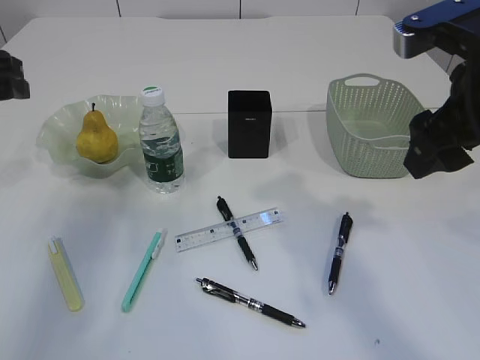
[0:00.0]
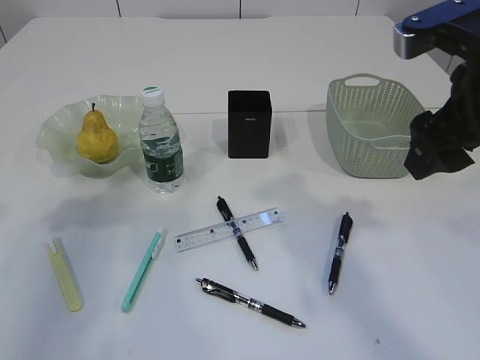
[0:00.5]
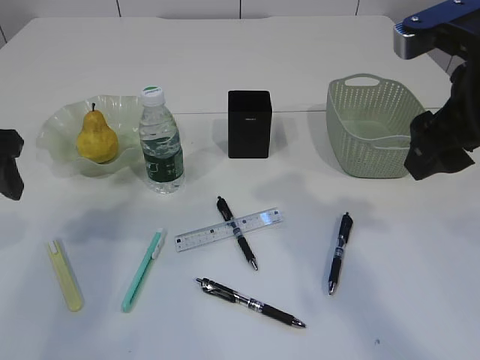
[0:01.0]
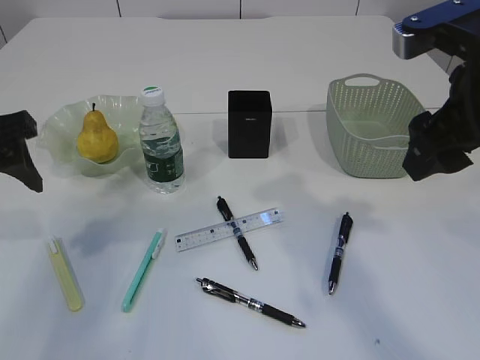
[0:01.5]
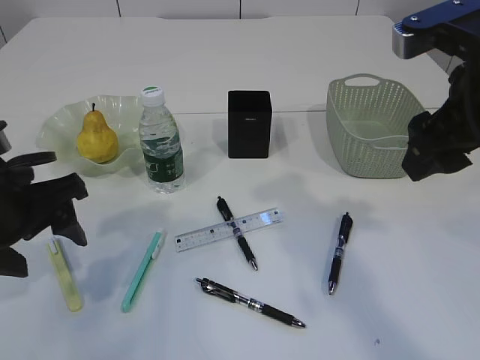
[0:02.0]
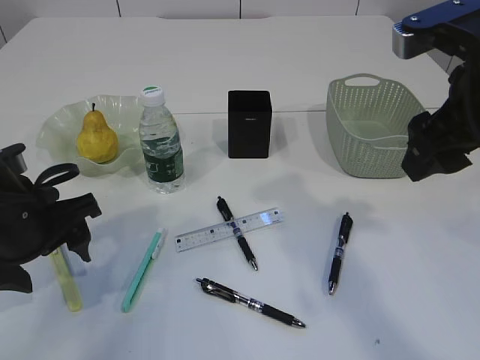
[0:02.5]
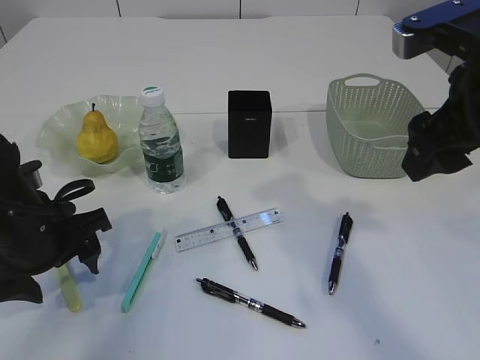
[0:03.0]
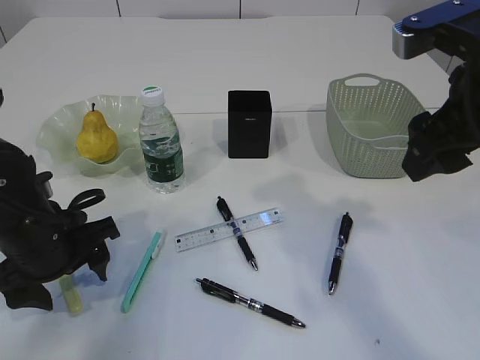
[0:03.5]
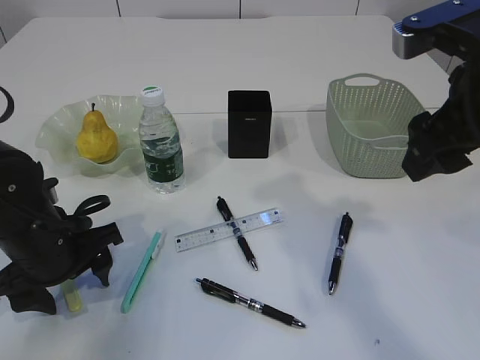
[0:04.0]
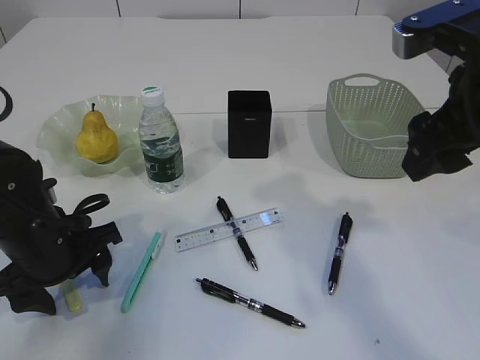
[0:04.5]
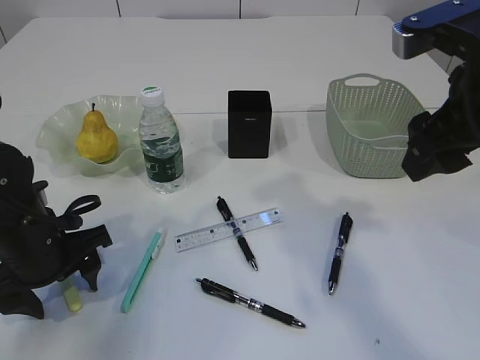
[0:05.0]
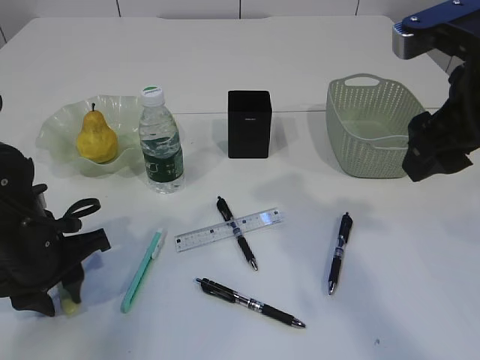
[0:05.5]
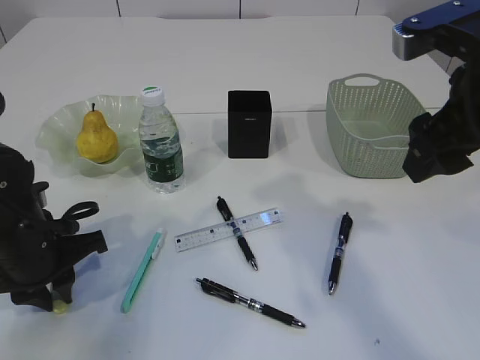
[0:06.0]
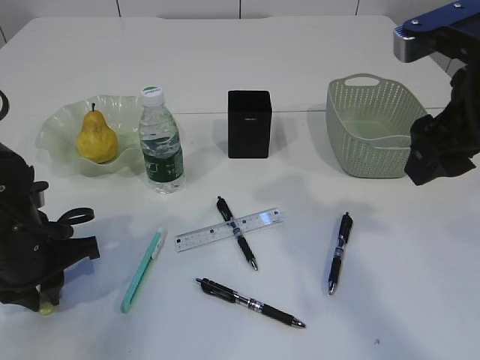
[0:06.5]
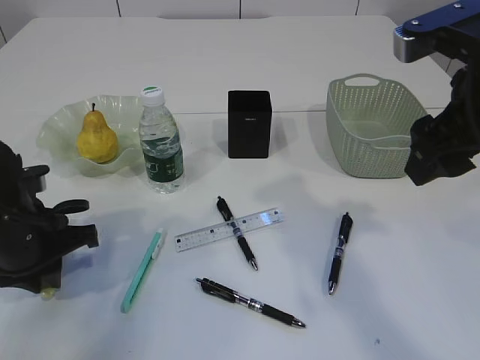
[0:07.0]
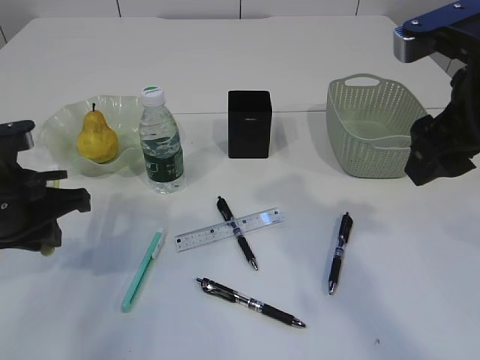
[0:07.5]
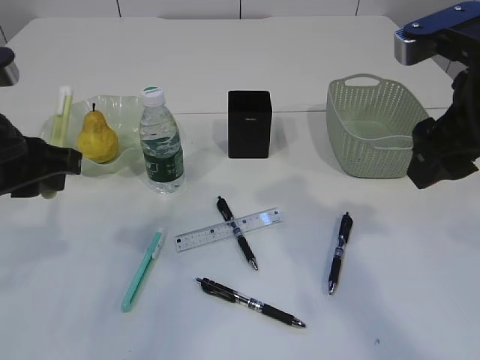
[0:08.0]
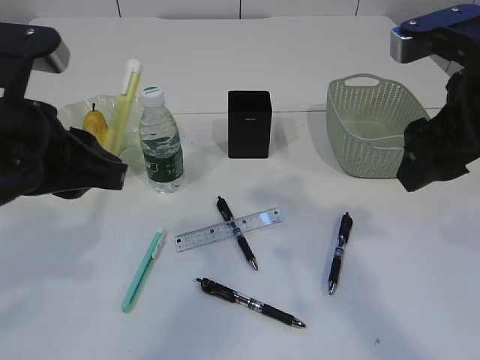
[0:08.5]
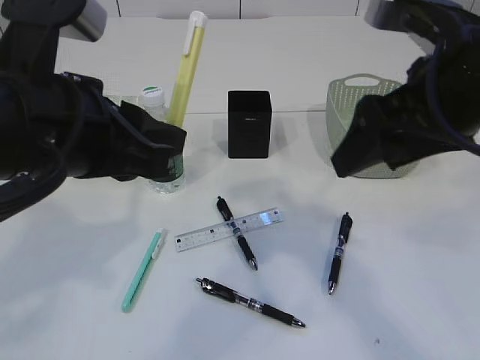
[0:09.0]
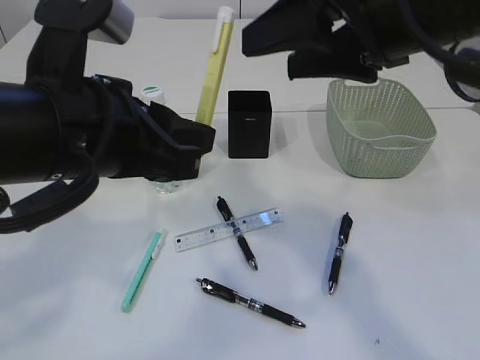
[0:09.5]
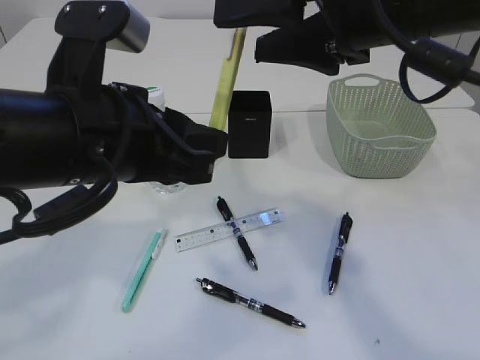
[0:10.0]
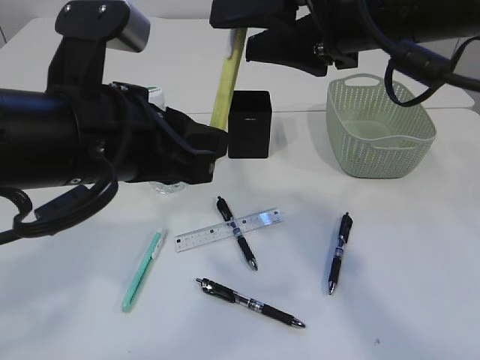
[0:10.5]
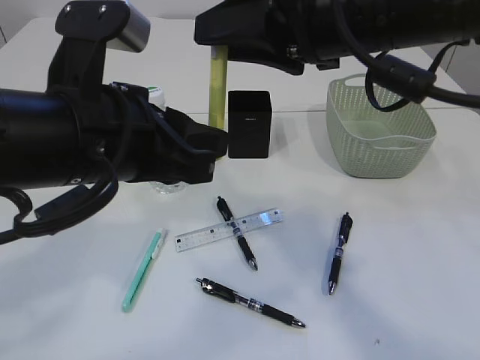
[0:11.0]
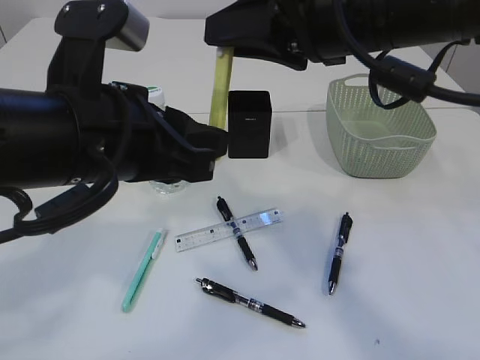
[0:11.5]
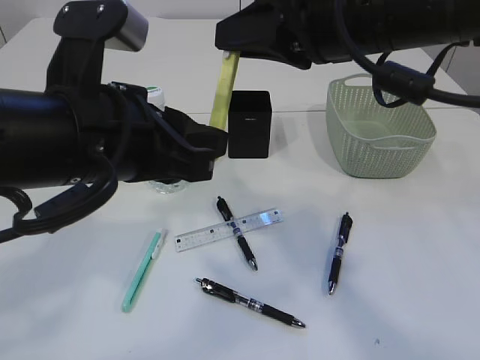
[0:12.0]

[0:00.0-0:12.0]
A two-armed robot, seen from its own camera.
Step, 0:00.0 to 0:08.0: pick up the yellow knife.
0:00.0 to 0:02.0: The left gripper travels backward, to the right and downward by some 15 cm.
0:02.0 to 0:04.0: The left gripper is displaced downward by about 10 cm.
0:04.0 to 0:06.0: The left gripper closes its fingers.
0:06.0 to 0:08.0: The left gripper travels upward by roughly 15 cm.
0:08.0 to 0:10.0: The left gripper is displaced to the right by about 10 cm, while the right gripper travels to the left by some 10 cm.
0:10.0 to 0:12.0: The right gripper closes.

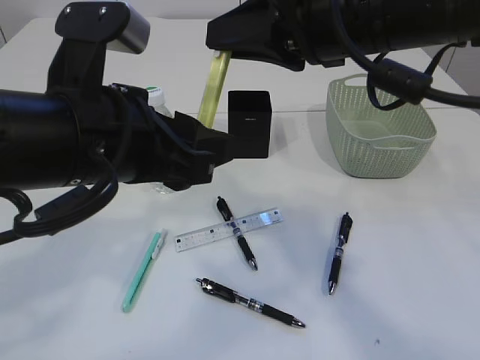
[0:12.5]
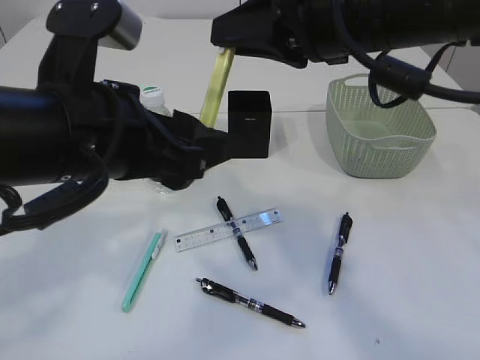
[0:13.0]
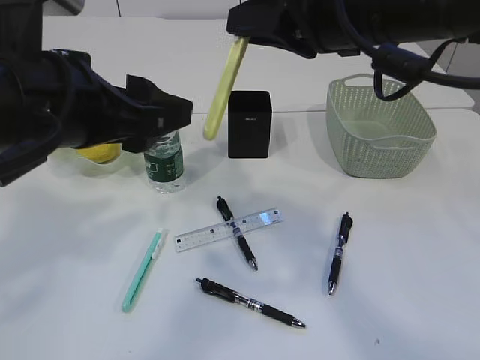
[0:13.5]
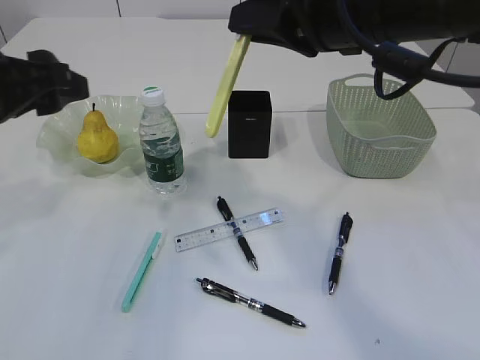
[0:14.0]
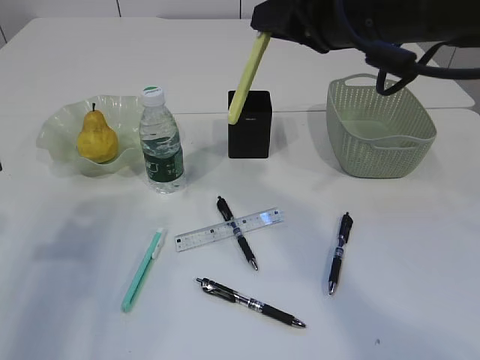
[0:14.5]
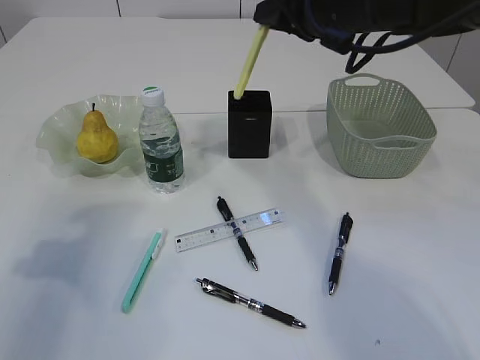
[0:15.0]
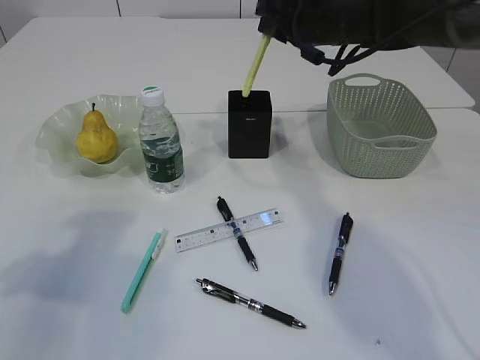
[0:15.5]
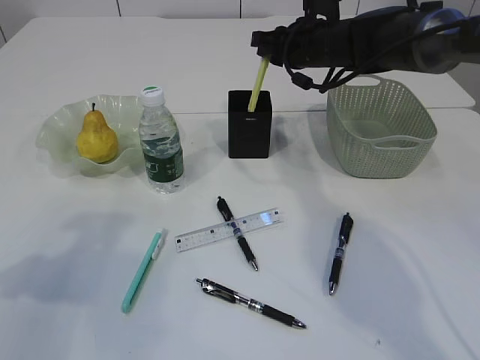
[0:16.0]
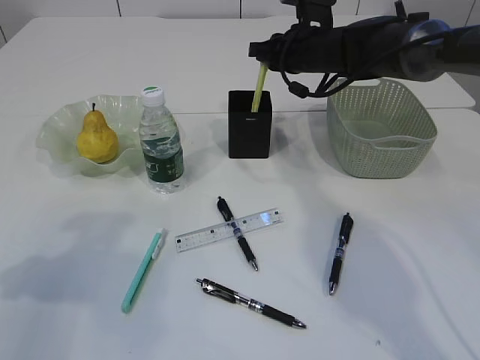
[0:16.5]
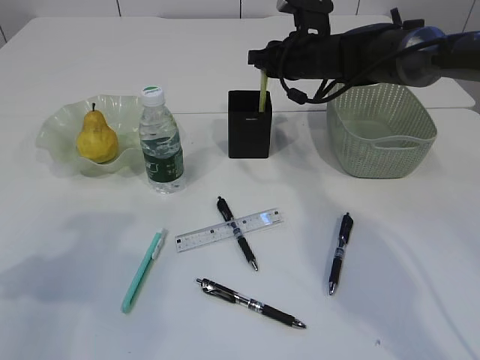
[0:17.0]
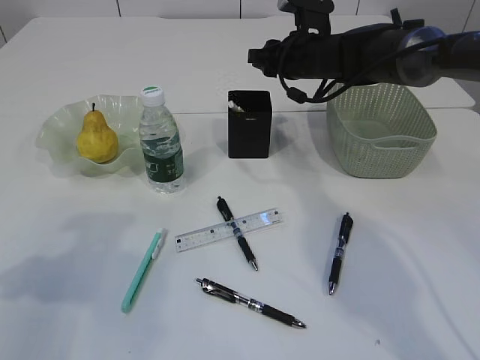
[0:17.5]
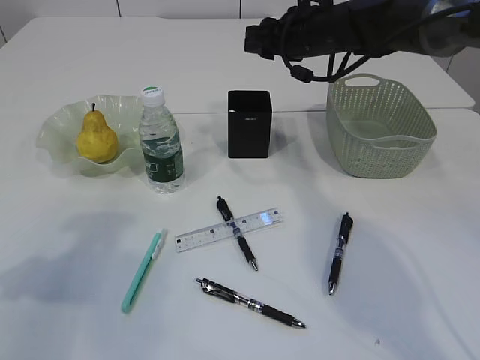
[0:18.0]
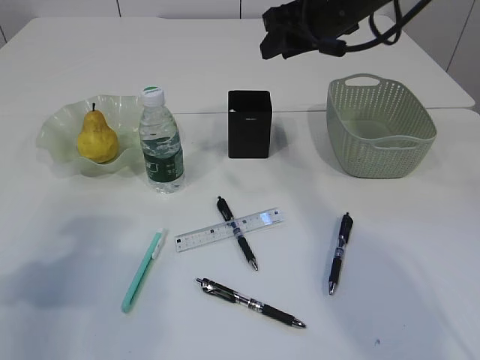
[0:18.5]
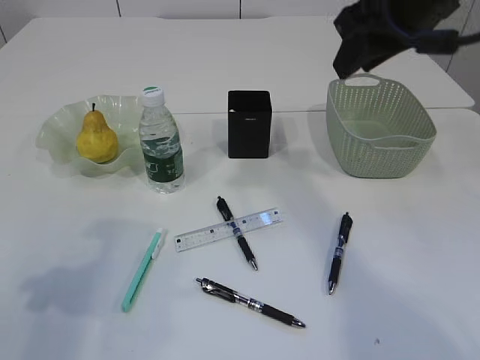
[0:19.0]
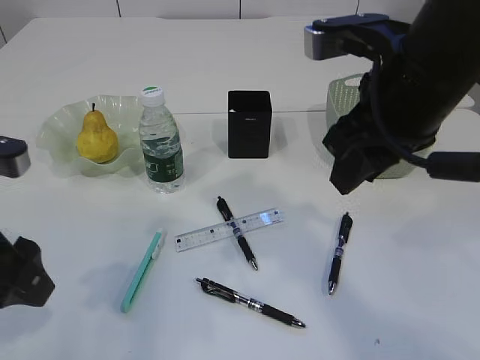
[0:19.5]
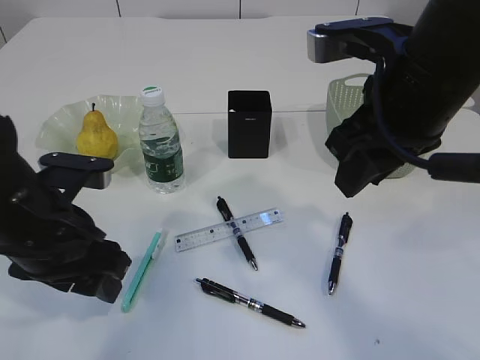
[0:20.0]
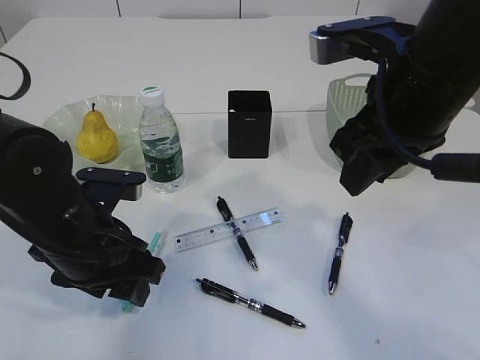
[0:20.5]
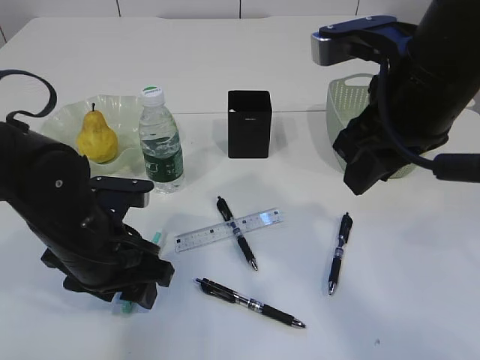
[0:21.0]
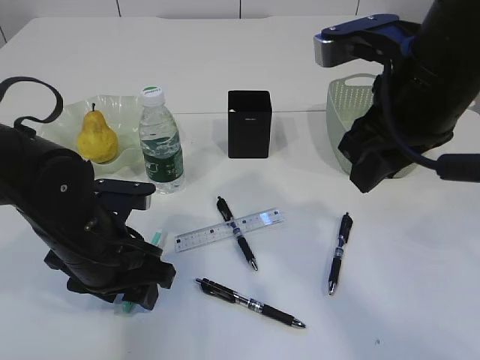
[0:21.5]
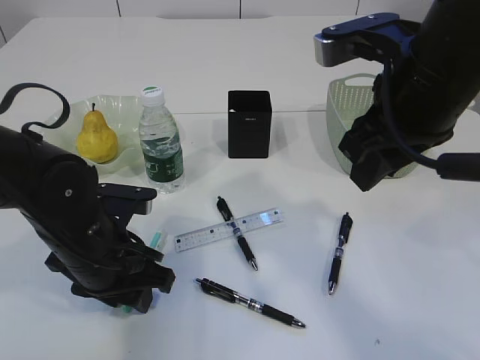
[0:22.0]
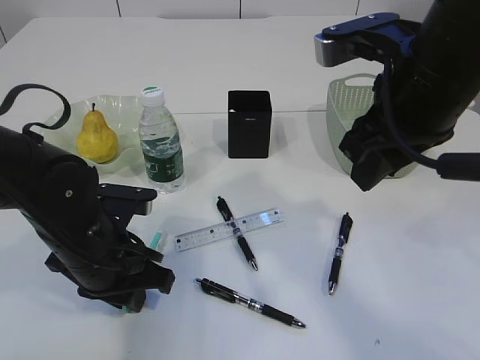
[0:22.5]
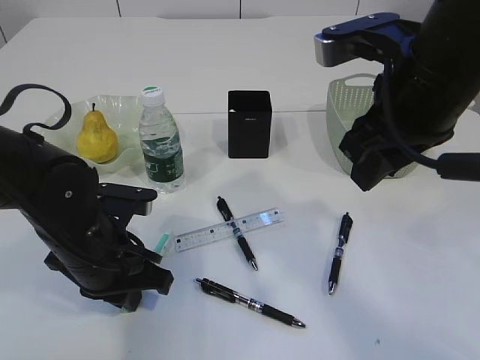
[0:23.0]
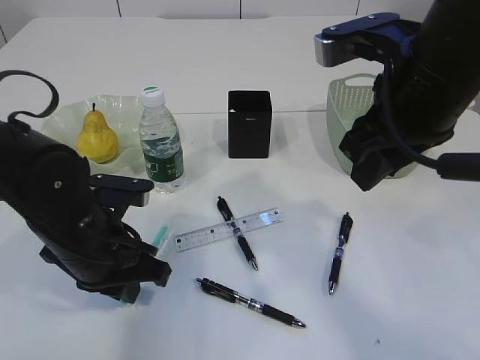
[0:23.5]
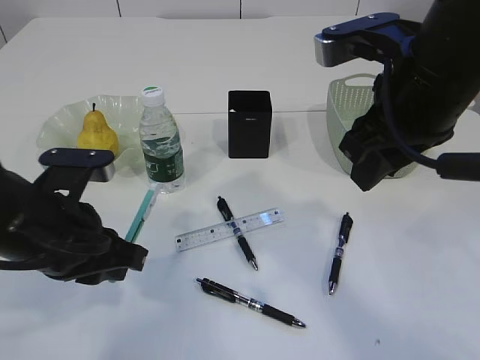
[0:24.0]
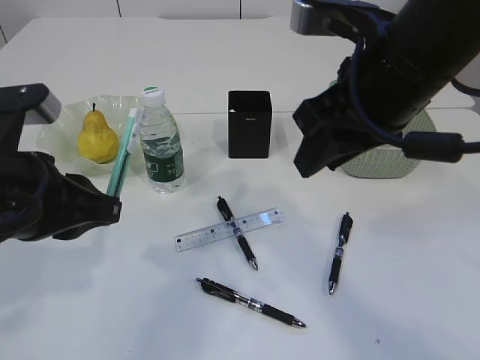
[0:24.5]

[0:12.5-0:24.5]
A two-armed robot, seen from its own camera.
Step, 0:12.5 to 0:18.0: place the yellow knife into the pen holder.
Step, 0:18.5 to 0:24.0: pick up the blue knife.
0:12.5 to 0:14.5: The left gripper is displaced to the left by approximately 20 cm.
0:14.5 to 0:16.5: The right gripper heads forward and downward, covering approximately 25 cm.
0:16.5 to 0:18.5: The right gripper travels upward and backward by some 15 cm, and opens.
0:18.5 to 0:20.5: The right gripper shifts about 15 cm backward. The left gripper shifts approximately 15 cm to the right and downward.
0:20.5 to 0:22.5: The left gripper closes its fingers.
0:22.5 to 0:24.5: The left gripper shifts about 10 cm upward.

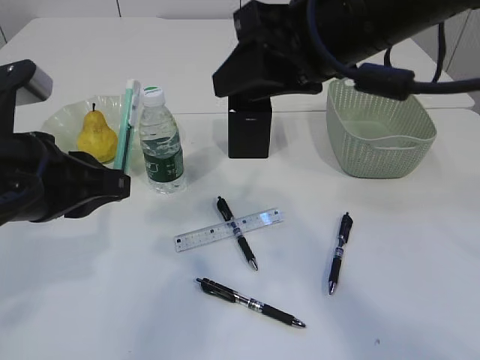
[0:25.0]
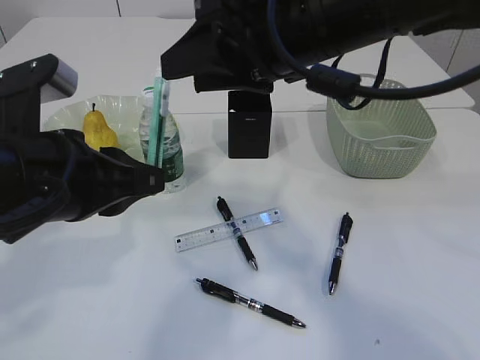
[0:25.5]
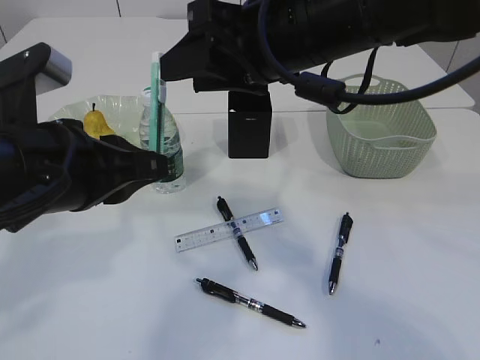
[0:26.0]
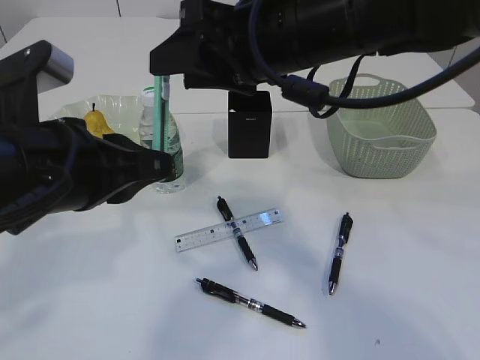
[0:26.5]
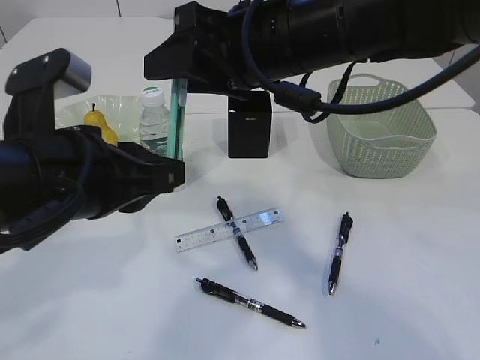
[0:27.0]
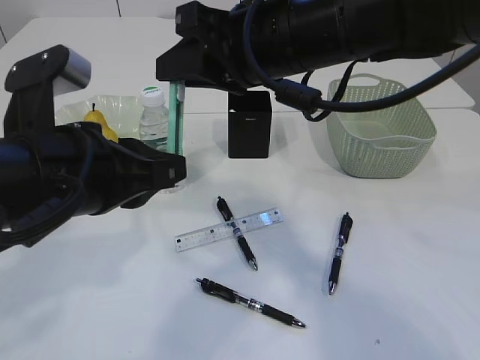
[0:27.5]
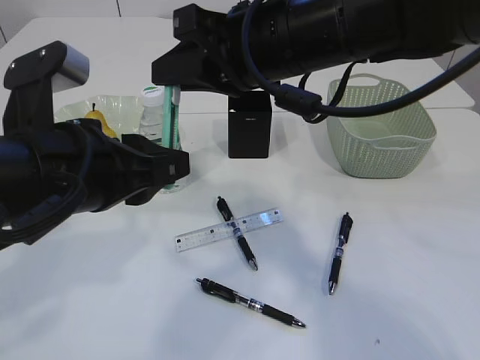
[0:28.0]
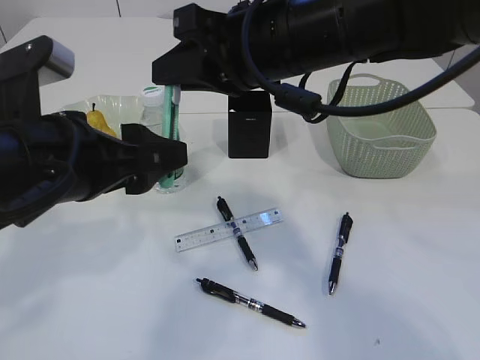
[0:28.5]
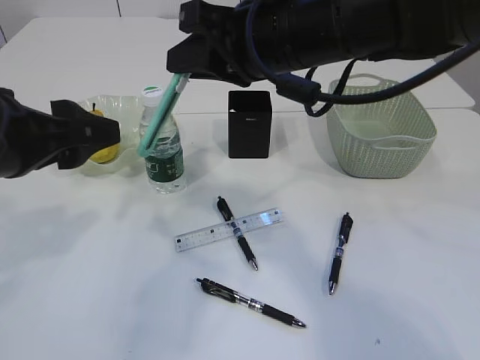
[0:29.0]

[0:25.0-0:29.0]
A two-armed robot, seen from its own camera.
0:25.0 to 0:27.0: The right gripper moves approximately 5 cm.
0:27.0 to 0:29.0: The left gripper shifts approximately 5 cm to the left, and opens; the right gripper closes.
